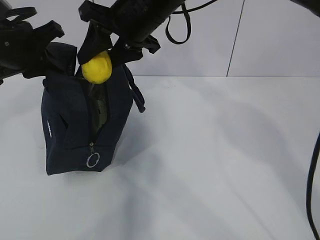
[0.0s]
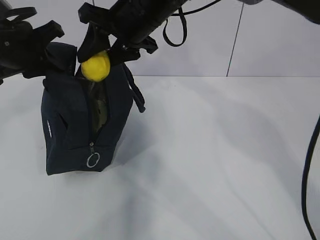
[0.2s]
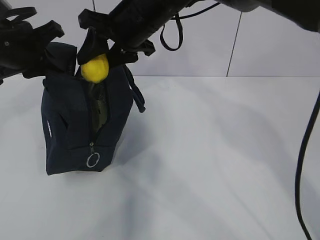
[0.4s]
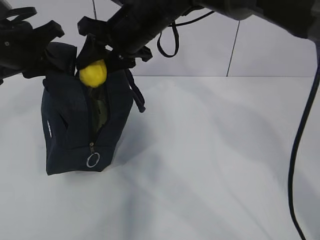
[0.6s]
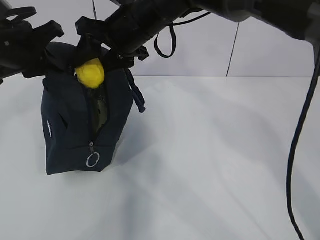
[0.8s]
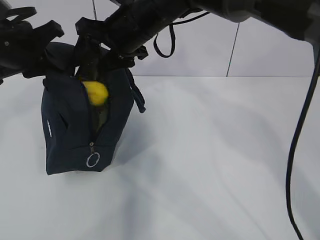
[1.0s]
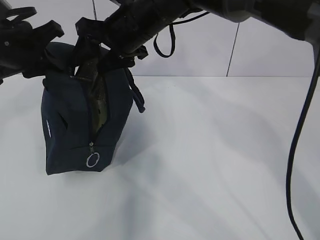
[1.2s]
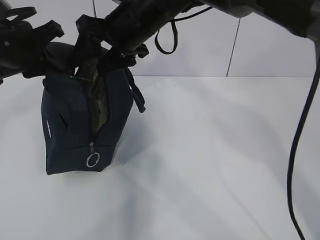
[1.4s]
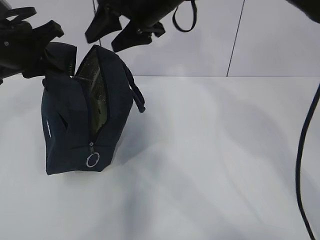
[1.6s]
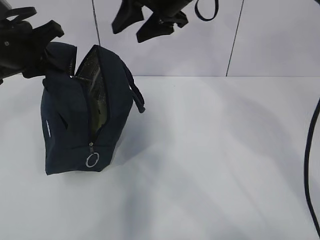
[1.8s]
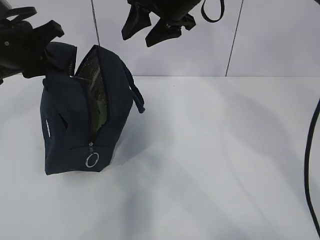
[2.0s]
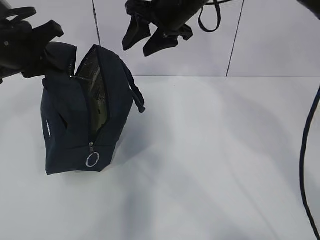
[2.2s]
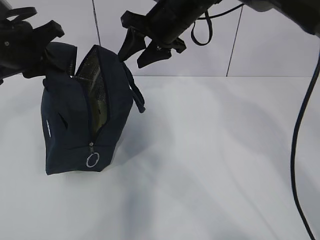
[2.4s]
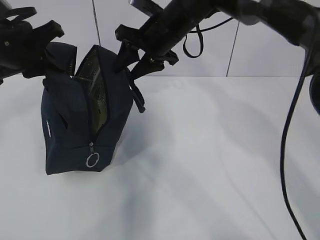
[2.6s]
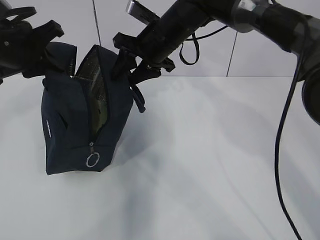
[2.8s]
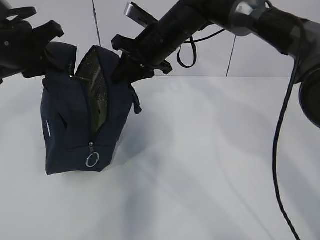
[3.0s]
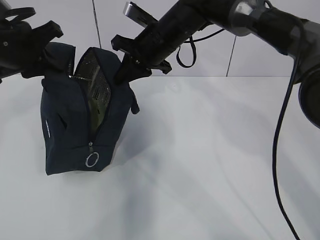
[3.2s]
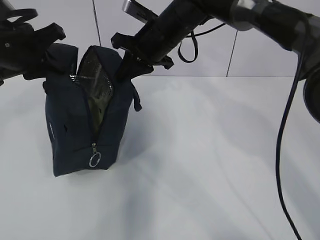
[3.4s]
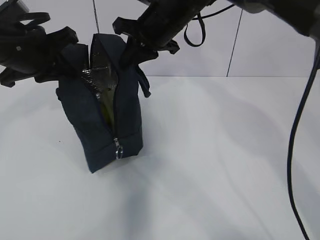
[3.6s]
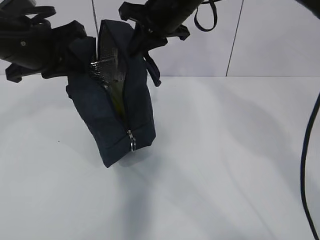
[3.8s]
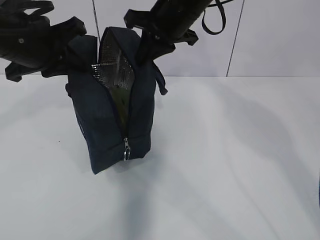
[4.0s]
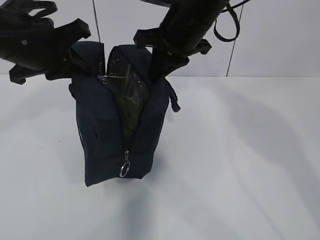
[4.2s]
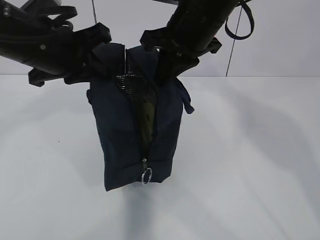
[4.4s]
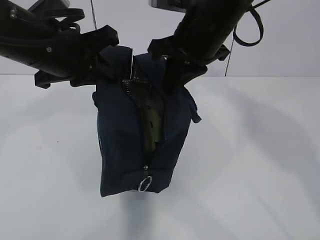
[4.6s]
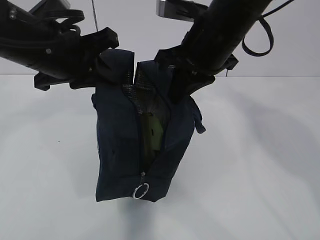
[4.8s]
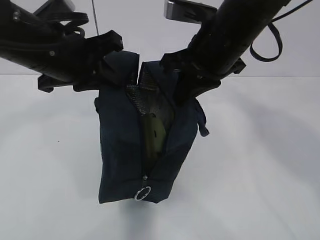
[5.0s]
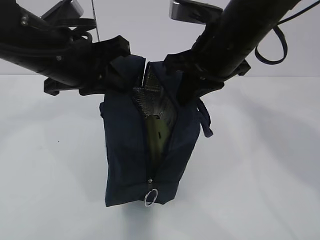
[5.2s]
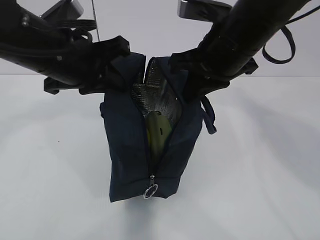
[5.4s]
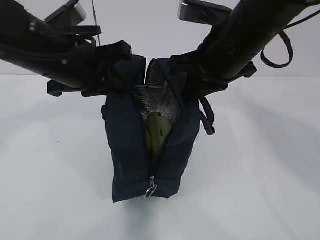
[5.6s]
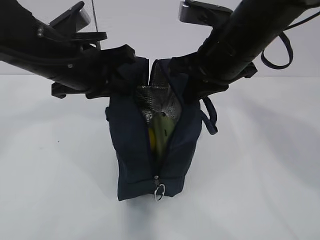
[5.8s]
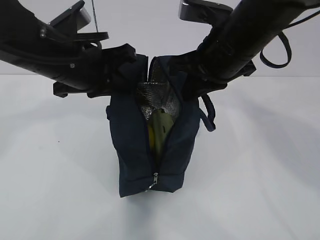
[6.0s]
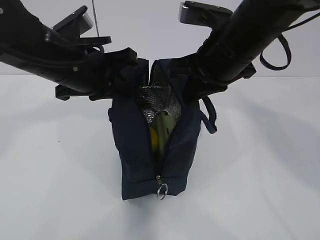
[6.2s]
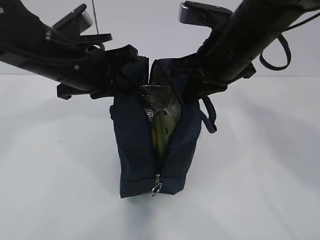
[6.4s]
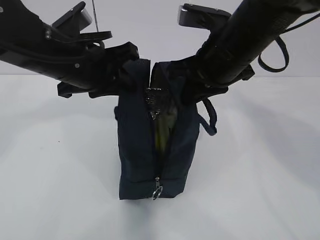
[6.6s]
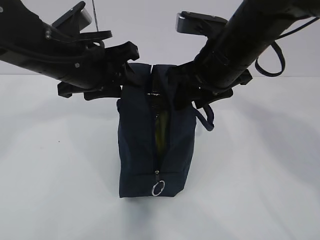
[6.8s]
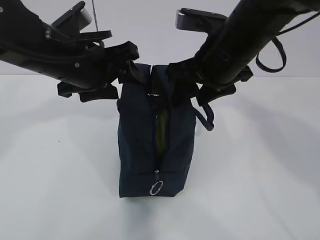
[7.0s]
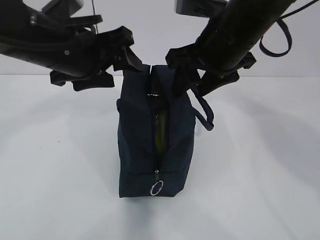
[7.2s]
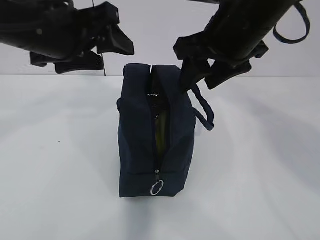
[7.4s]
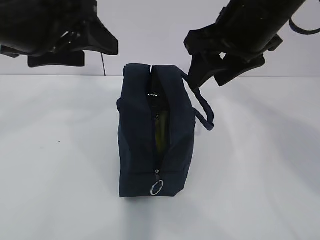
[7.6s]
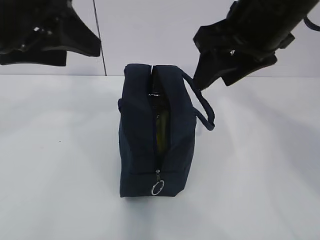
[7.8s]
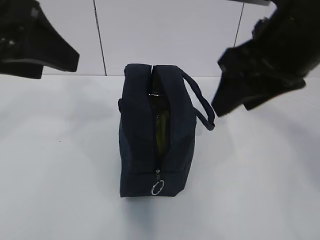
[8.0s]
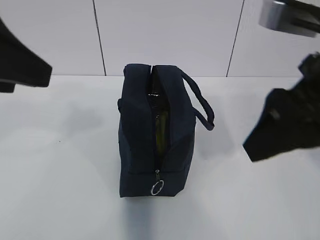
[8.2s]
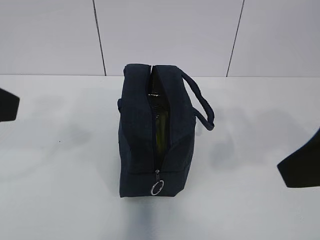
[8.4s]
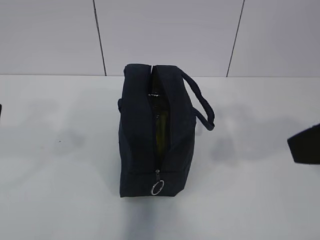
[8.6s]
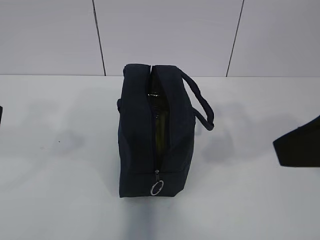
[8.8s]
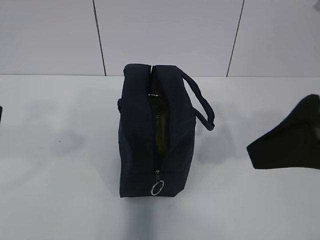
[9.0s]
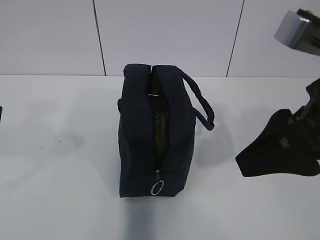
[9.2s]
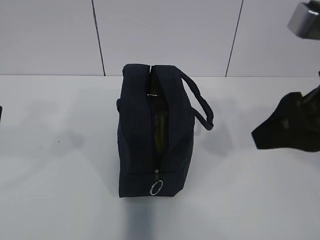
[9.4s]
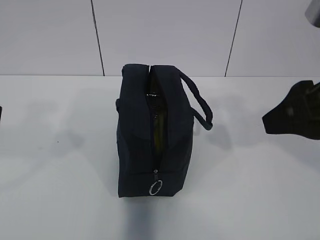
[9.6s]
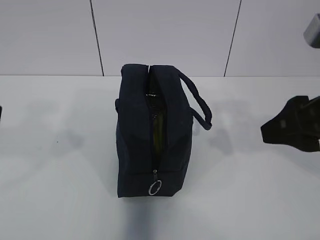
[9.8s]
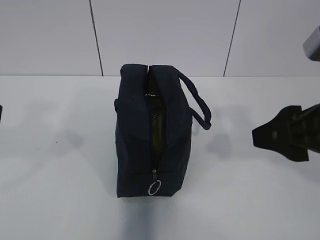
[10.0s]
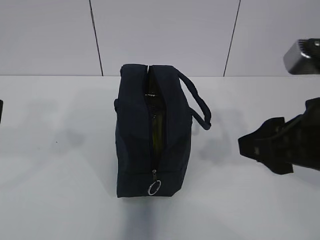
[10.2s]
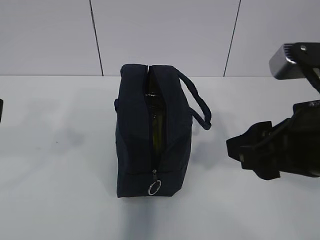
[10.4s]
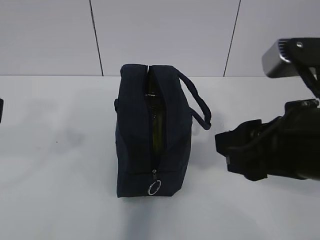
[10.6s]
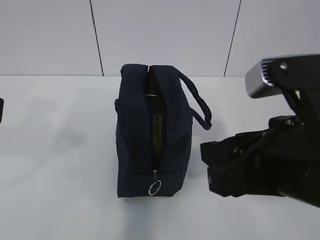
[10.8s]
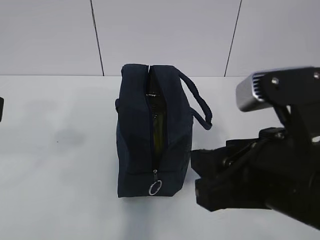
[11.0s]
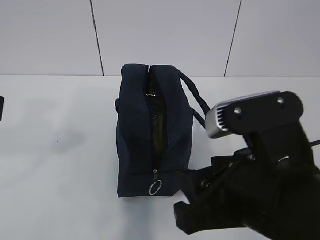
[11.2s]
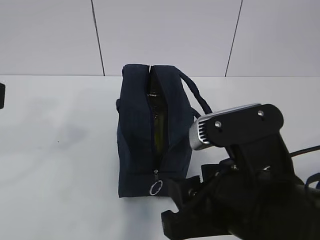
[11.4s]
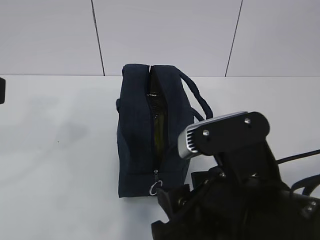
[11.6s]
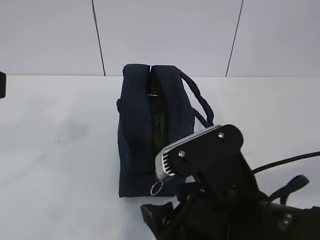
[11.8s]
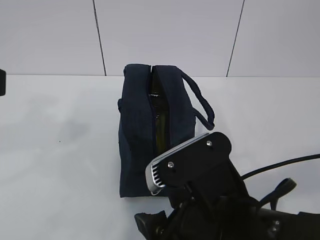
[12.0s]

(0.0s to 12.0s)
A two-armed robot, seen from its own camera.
0.0s - 1.6s: There are only small adjustments of the grippers.
1.6s - 3.0s: The right gripper travels downward by roughly 10 cm, and closes its fingers.
3.0s - 4.4s: The right gripper goes approximately 10 cm backward and upward, while the left gripper is displaced to the right by roughly 5 cm.
4.4s - 6.0s: The right gripper ends up approximately 5 cm from where it was.
6.0s - 7.6s: The right gripper ends up some 5 cm from where it was, and opens up. Meanwhile the left gripper travels upward by roughly 5 cm, and opens.
7.6s - 9.0s: The right gripper is displaced backward by roughly 15 cm. Meanwhile the left gripper moves backward and to the left, roughly 15 cm.
9.0s - 10.4s: The right gripper heads downward, covering about 5 cm.
10.4s - 12.0s: The right gripper heads to the left and downward, covering some 10 cm.

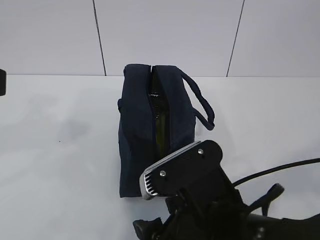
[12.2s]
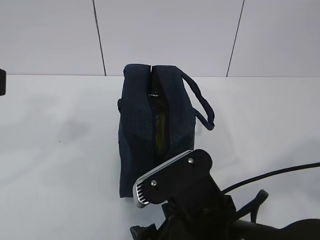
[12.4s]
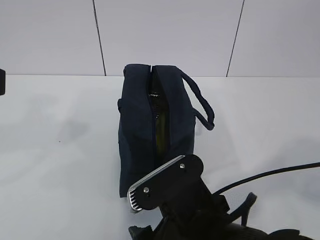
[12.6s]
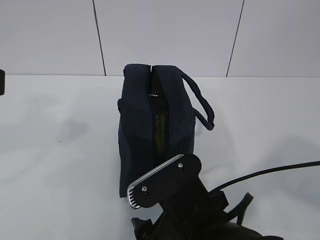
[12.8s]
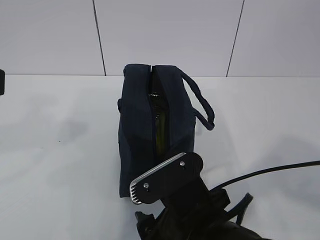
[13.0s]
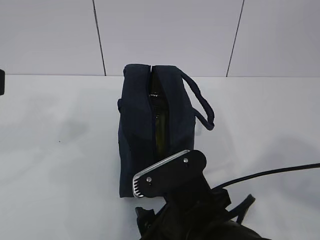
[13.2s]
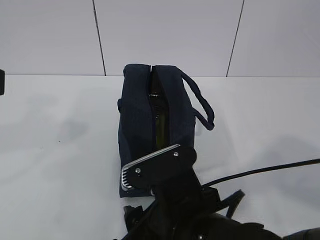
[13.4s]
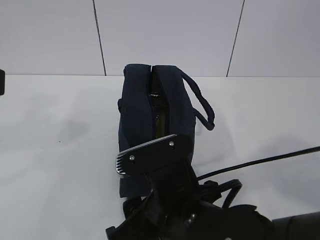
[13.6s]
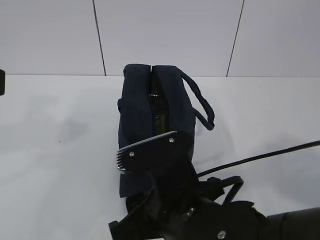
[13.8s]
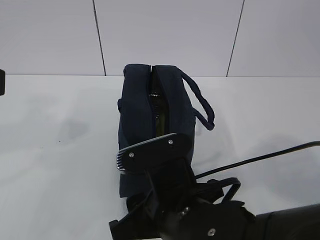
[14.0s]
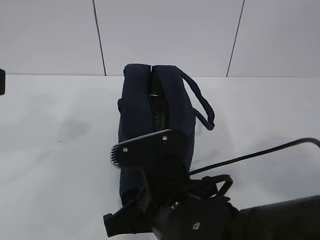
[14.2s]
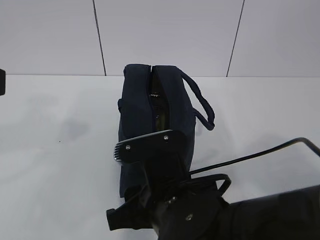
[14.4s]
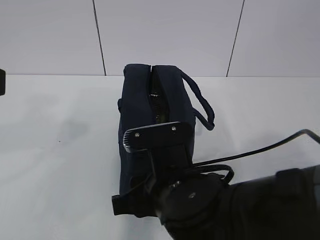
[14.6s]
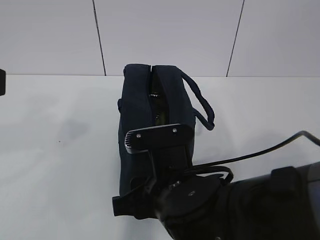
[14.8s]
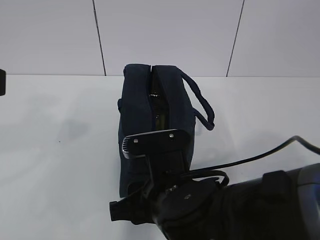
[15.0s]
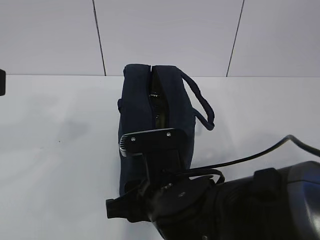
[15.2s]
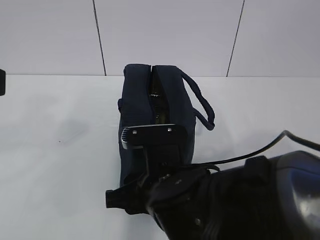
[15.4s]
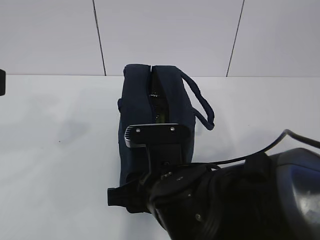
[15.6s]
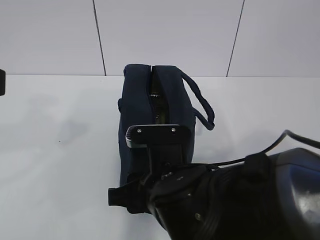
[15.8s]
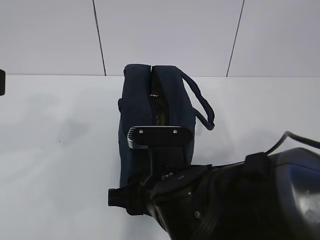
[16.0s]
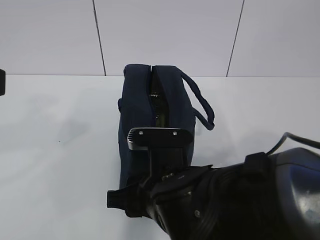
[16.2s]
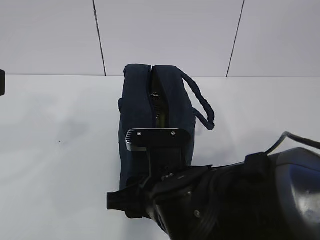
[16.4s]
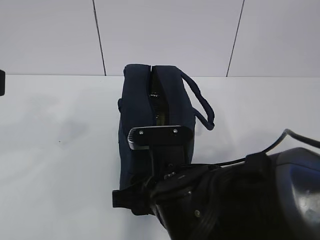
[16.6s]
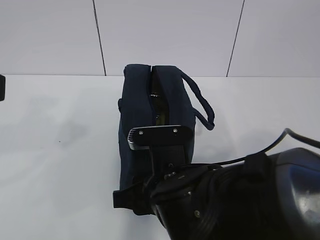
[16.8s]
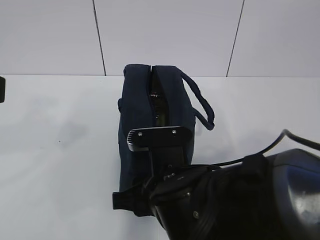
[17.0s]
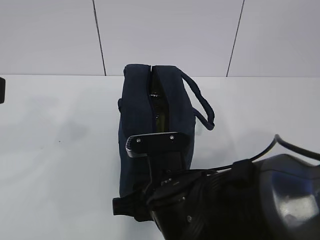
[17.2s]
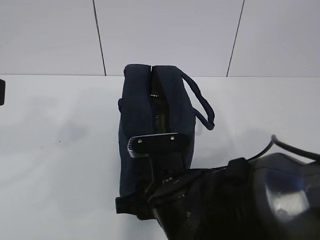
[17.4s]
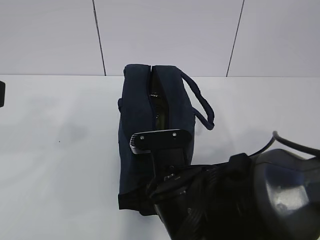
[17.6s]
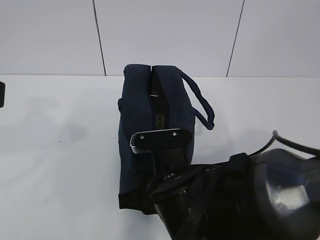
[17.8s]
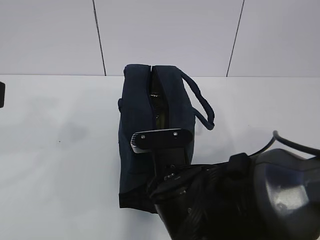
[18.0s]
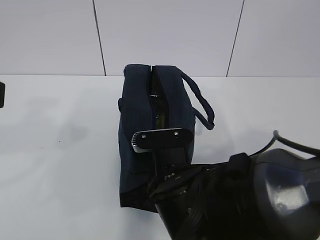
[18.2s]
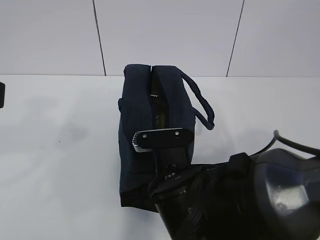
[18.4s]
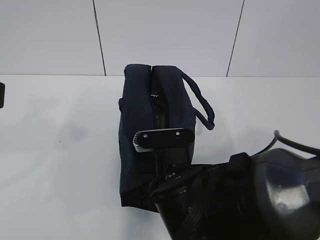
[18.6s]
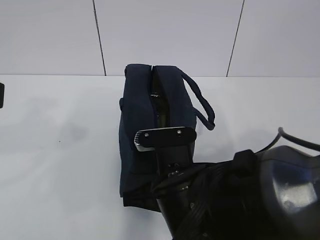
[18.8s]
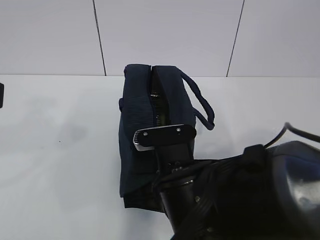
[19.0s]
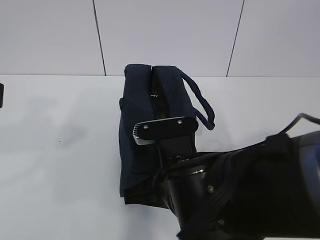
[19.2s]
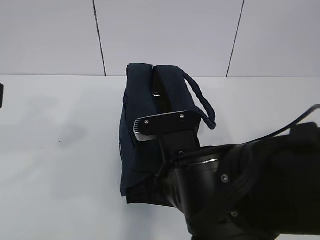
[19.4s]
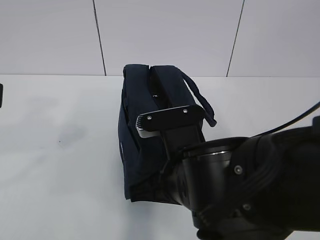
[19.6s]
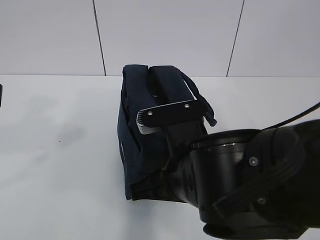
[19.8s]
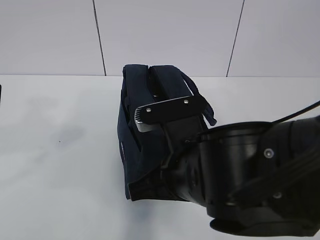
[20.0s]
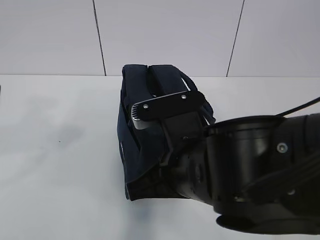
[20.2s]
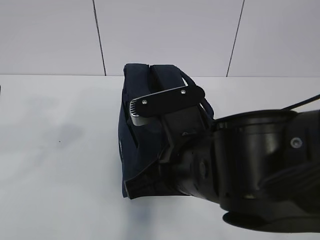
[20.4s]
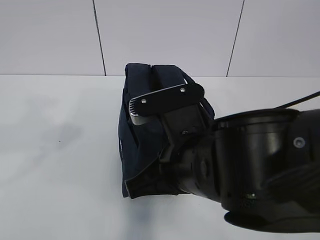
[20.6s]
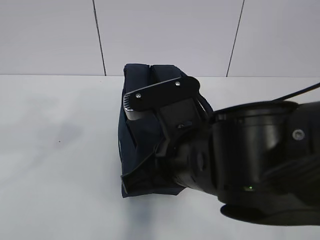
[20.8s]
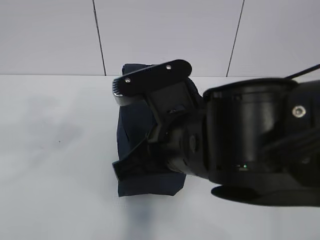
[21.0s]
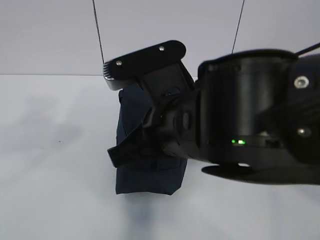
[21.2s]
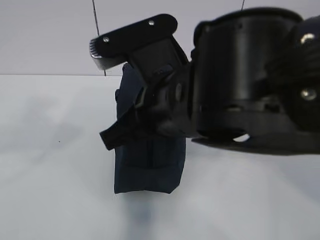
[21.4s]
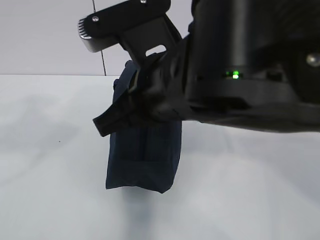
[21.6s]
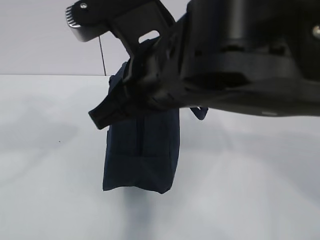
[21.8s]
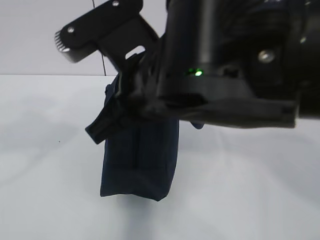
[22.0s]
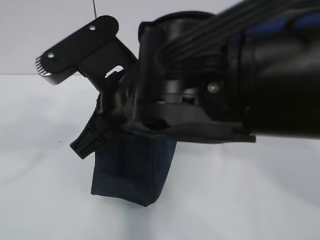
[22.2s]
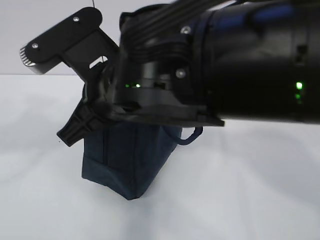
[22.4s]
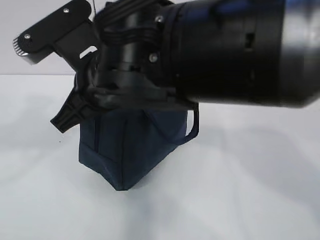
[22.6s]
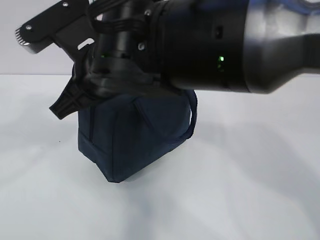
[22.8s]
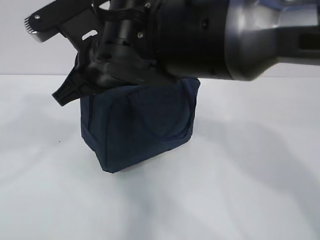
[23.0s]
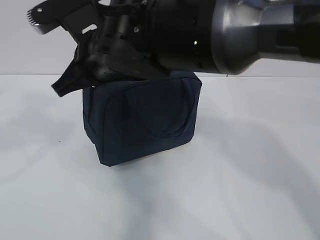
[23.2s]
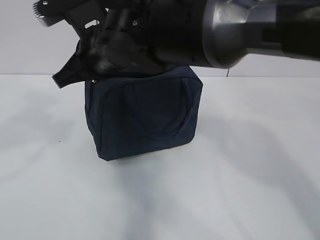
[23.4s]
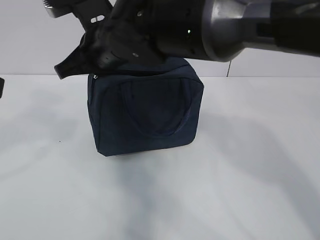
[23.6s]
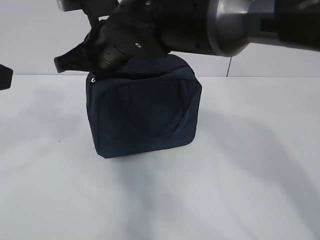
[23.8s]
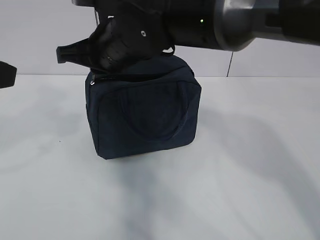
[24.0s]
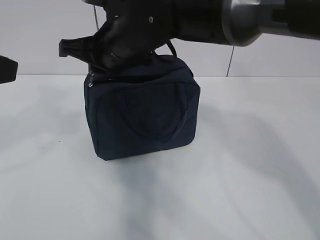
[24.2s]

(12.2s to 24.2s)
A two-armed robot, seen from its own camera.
12.2s - 13.8s: The right gripper ends up some 5 cm from where it was.
13.8s - 15.2s: The grippers stay close to where they were, moving slightly.
15.2s - 16.6s: The grippers stay close to where they were, moving slightly.
16.6s - 18.2s: The right gripper closes its fingers.
18.2s - 19.8s: The right gripper travels upward by about 5 cm.
19.8s - 21.2s: The right gripper heads upward, covering some 5 cm.
21.2s - 22.6s: The right gripper shifts approximately 10 cm to the left and forward.
22.6s - 24.2s: The right gripper travels forward by some 10 cm.
